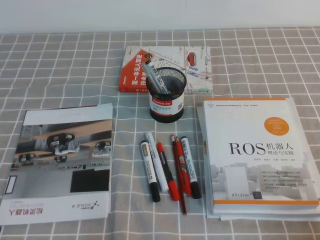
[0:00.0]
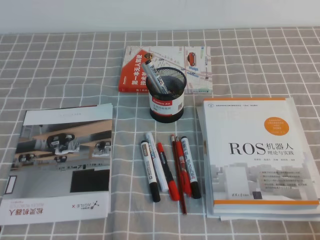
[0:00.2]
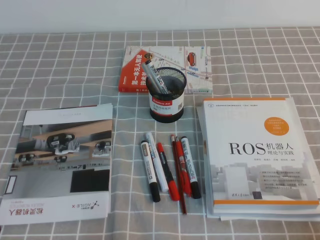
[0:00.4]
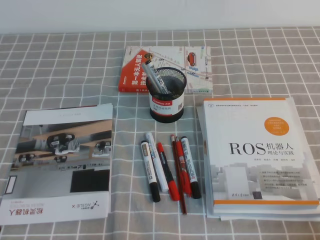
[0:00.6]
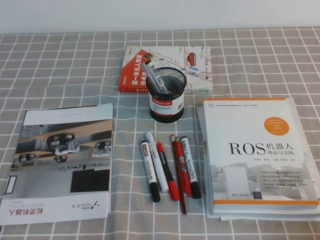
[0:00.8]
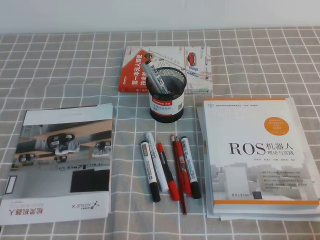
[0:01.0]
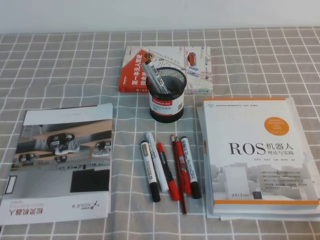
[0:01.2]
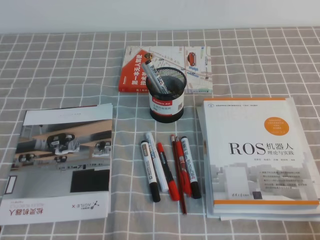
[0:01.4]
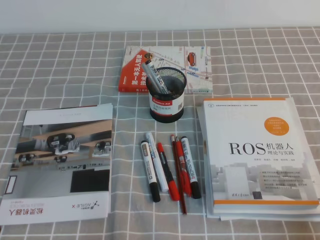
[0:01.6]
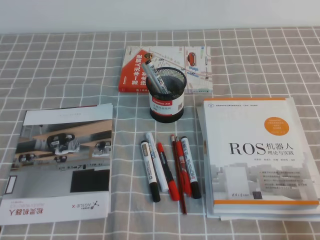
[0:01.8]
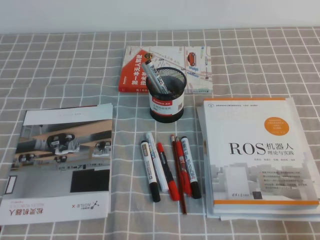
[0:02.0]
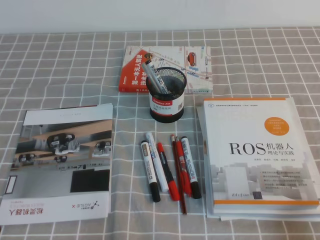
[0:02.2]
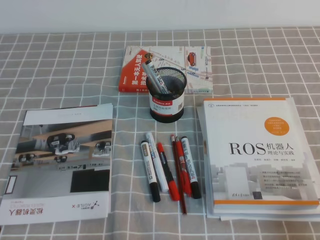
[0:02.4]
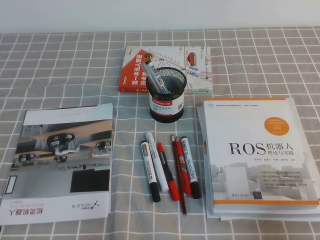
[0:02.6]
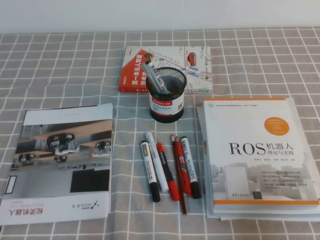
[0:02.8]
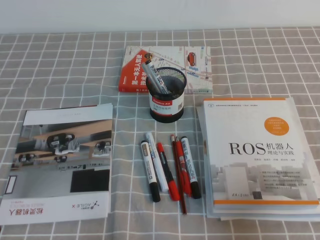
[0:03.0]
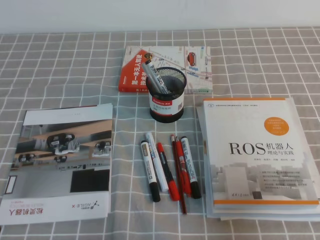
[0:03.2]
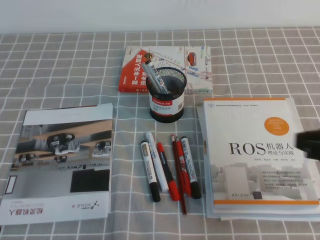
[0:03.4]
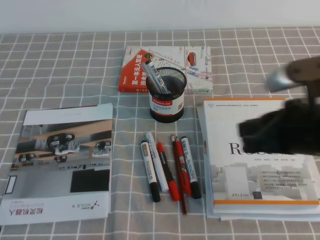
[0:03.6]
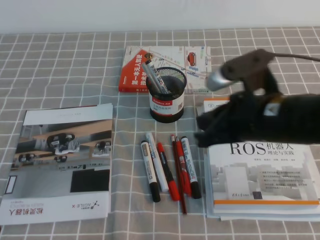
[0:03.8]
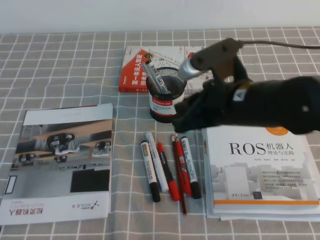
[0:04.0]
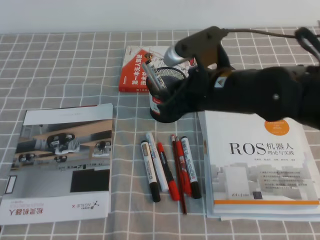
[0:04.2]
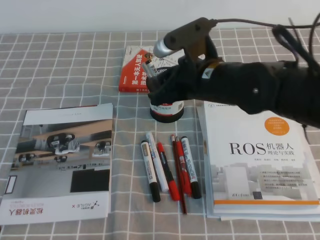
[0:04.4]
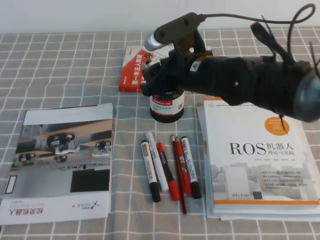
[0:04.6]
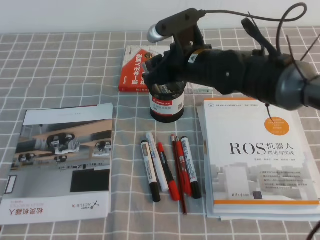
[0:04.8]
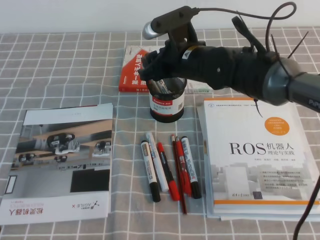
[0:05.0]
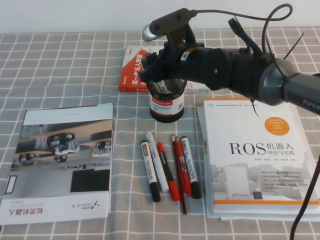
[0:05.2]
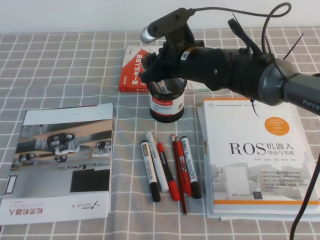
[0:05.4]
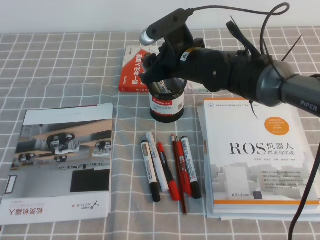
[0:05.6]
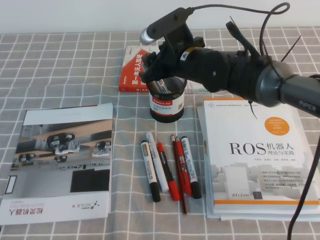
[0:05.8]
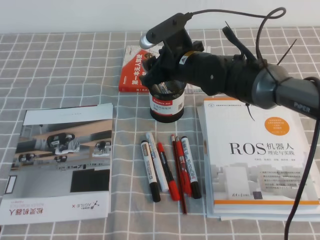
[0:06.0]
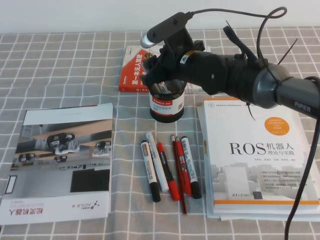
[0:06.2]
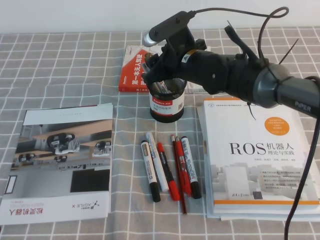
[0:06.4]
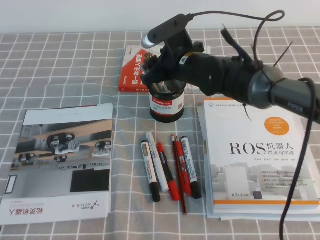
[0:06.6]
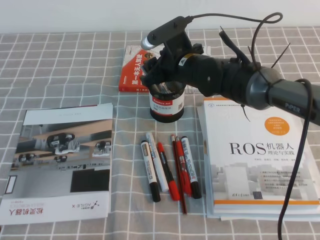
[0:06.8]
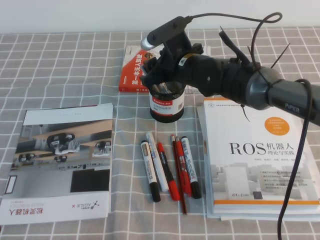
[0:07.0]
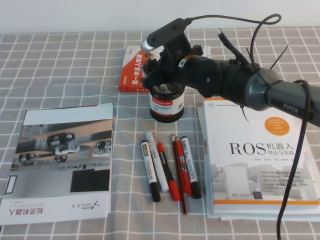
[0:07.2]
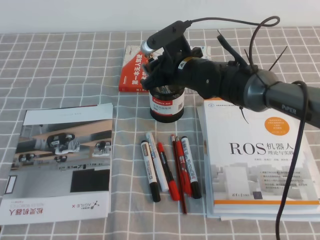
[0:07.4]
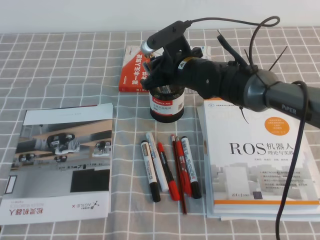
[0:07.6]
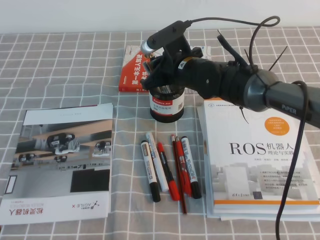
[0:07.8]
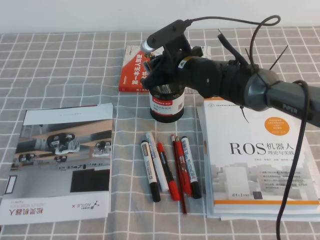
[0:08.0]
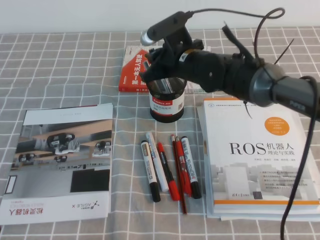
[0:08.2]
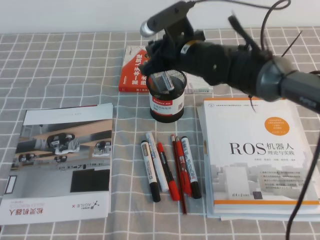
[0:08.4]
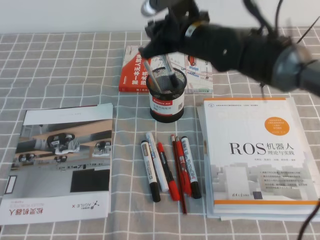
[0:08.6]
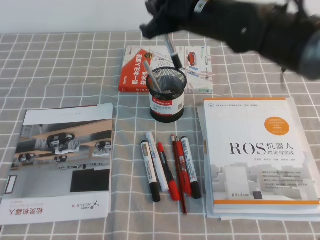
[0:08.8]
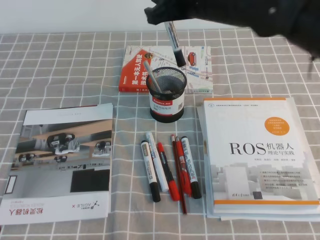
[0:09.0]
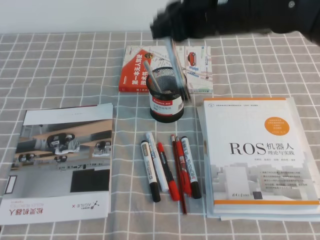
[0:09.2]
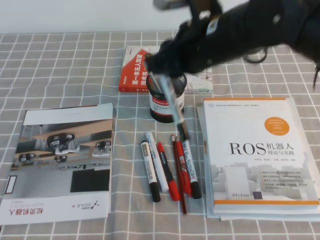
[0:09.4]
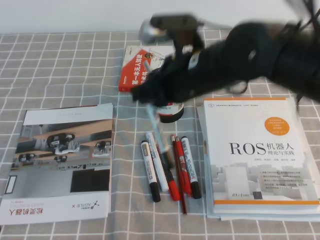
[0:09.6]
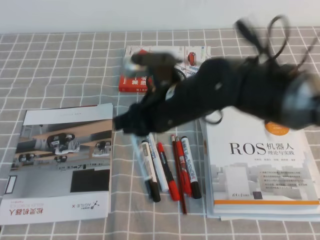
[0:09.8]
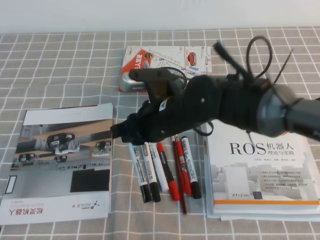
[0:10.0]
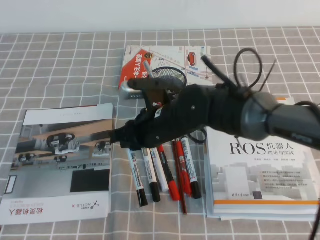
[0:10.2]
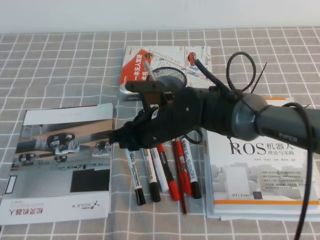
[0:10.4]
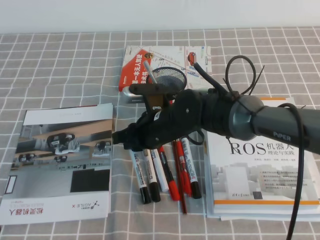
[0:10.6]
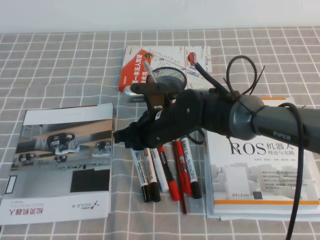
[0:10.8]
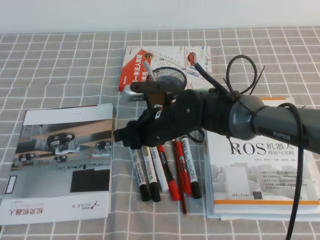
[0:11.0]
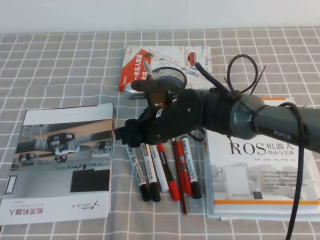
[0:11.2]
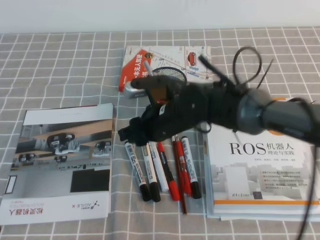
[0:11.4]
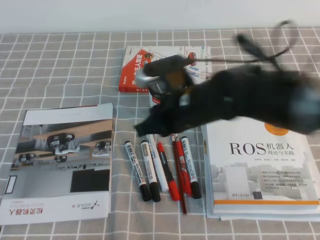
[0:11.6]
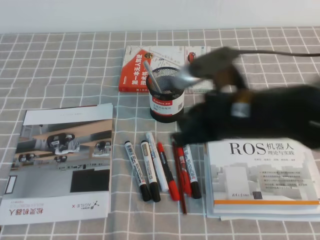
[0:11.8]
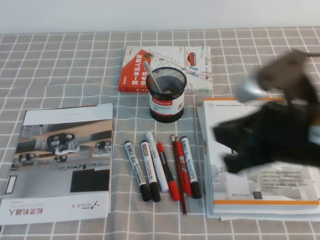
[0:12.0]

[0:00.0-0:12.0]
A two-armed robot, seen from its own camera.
0:01.6 to 0:03.0: The right gripper heads upward, covering about 10 cm.
0:03.0 to 0:04.4: The right gripper travels forward and to the left by roughly 30 cm, and opens up.
0:04.4 to 0:06.0: The right gripper is displaced forward by approximately 10 cm.
0:06.0 to 0:07.6: The right gripper closes its fingers.
0:07.6 to 0:09.0: The right gripper is displaced upward and backward by about 15 cm.
0:09.0 to 0:10.4: The right gripper goes roughly 20 cm downward and to the left.
0:10.4 to 0:12.0: The right gripper moves to the right, backward and upward, about 25 cm, and opens and closes again.

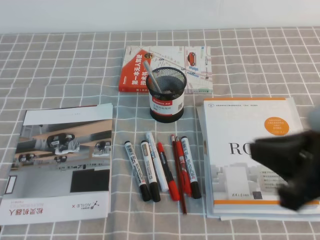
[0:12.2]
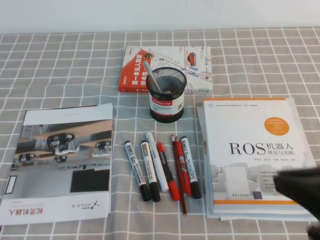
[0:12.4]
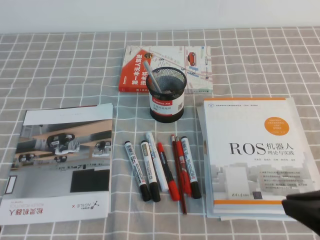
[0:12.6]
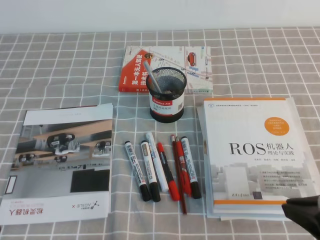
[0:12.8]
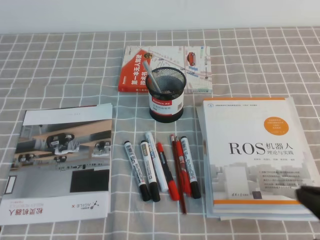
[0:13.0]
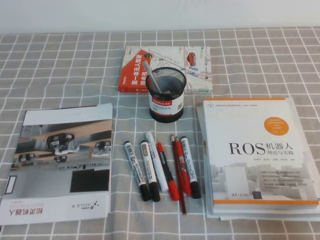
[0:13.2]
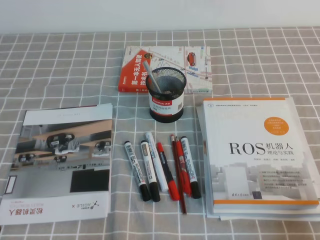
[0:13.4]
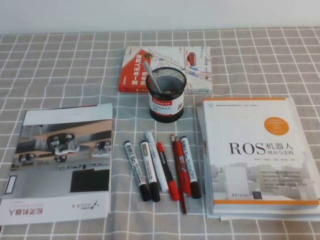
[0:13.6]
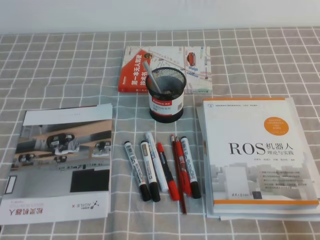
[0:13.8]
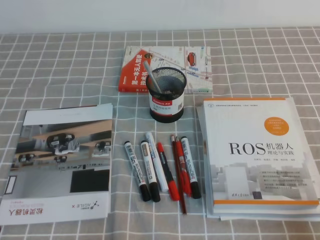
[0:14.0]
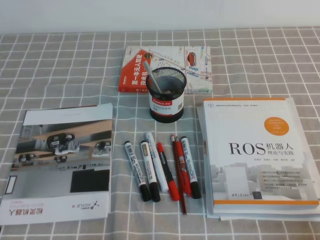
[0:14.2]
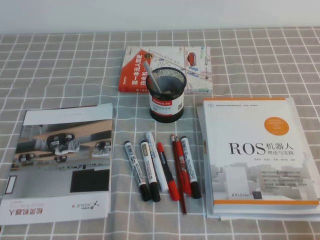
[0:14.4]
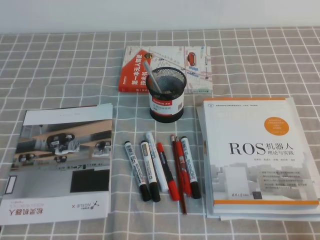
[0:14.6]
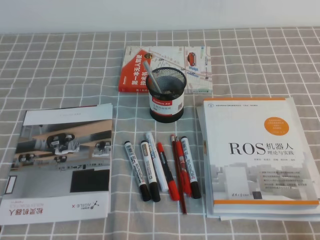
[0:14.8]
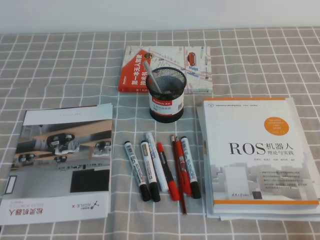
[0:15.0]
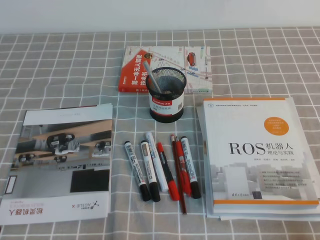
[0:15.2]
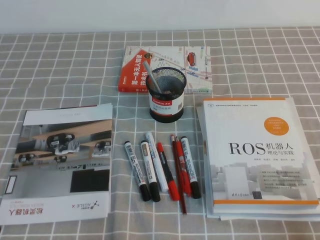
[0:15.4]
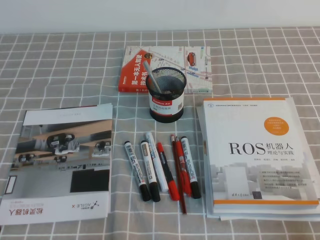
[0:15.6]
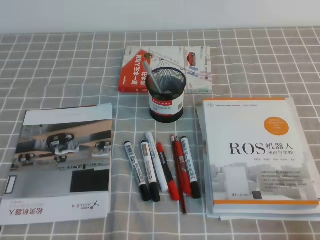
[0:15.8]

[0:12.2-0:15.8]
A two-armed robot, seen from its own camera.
Step, 0:12.2 to 0:15.8: Pick up the pen from the pen holder.
0:12.2 to 0:14.0: The right gripper shifts approximately 20 cm downward, to the right and backward.
